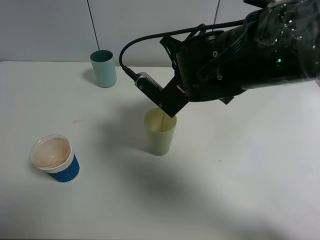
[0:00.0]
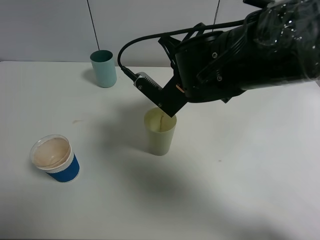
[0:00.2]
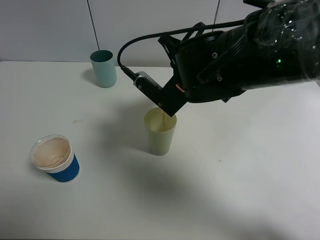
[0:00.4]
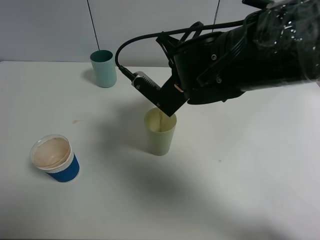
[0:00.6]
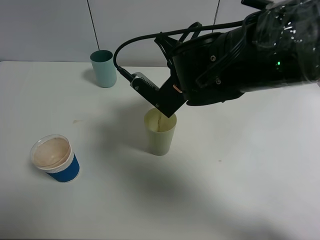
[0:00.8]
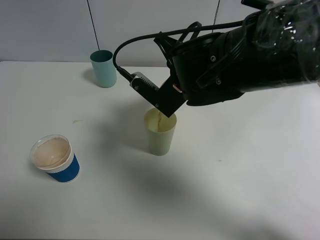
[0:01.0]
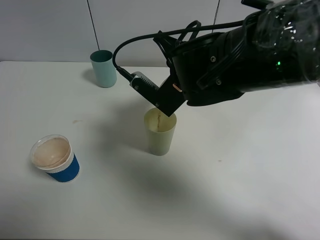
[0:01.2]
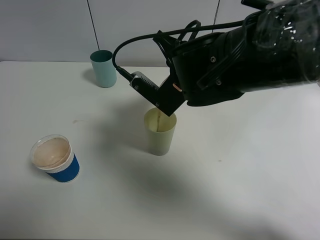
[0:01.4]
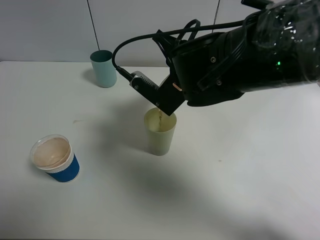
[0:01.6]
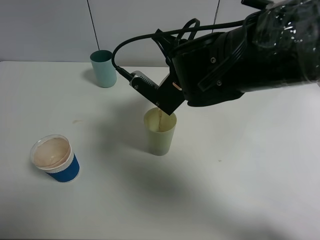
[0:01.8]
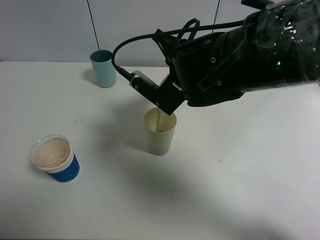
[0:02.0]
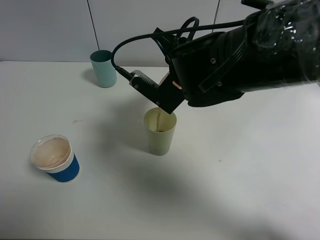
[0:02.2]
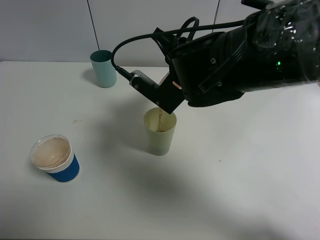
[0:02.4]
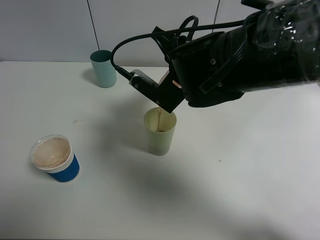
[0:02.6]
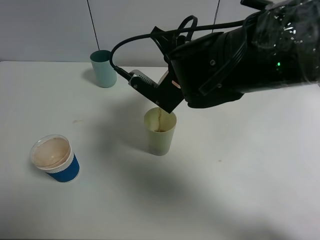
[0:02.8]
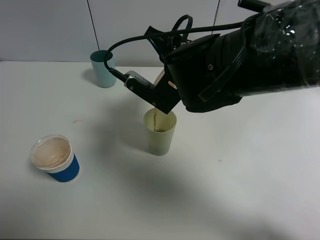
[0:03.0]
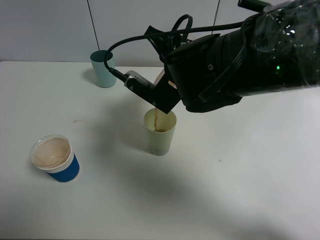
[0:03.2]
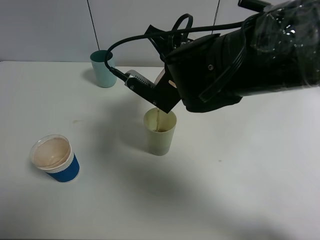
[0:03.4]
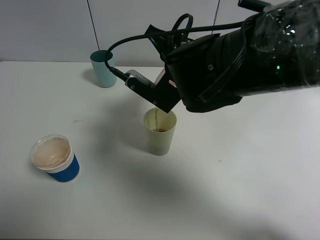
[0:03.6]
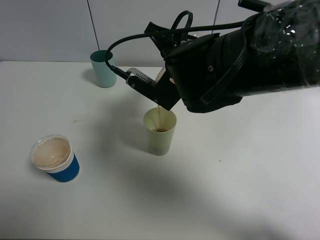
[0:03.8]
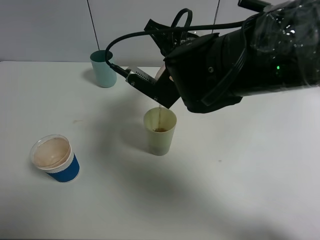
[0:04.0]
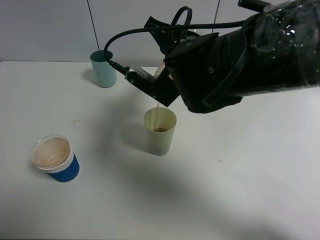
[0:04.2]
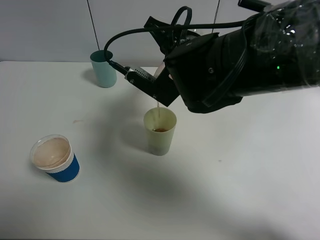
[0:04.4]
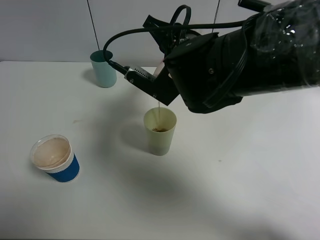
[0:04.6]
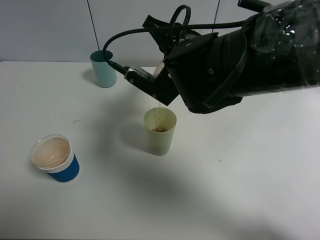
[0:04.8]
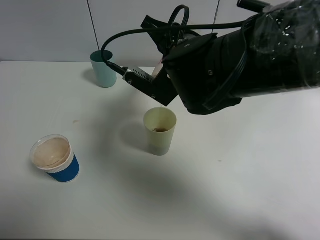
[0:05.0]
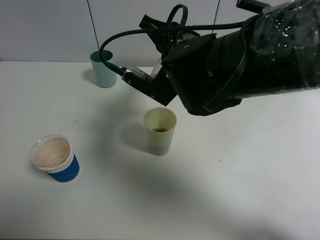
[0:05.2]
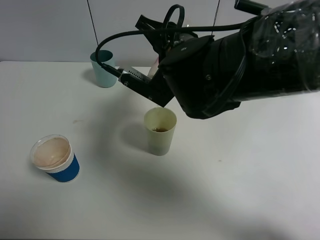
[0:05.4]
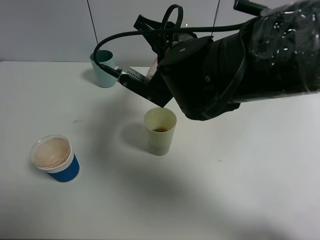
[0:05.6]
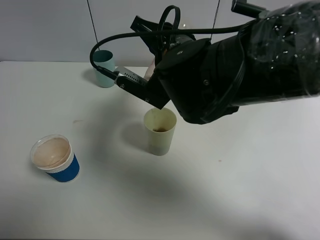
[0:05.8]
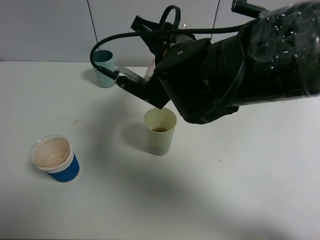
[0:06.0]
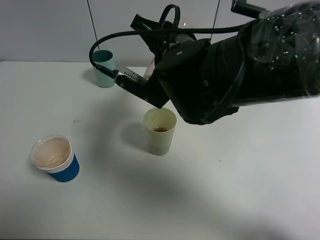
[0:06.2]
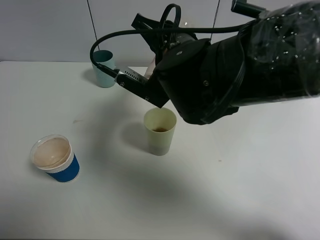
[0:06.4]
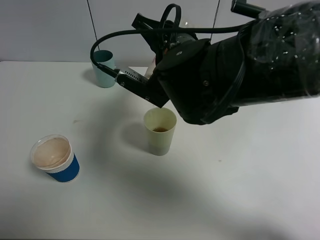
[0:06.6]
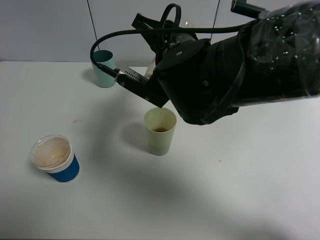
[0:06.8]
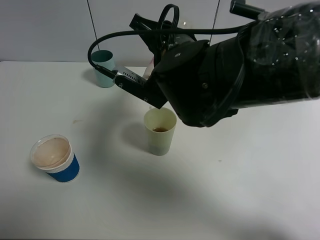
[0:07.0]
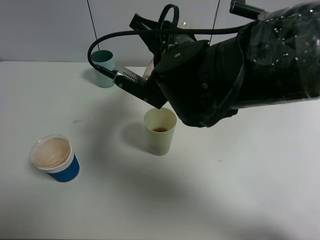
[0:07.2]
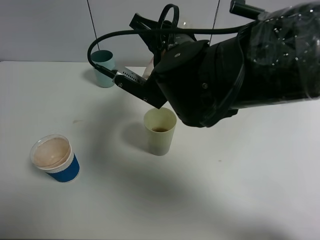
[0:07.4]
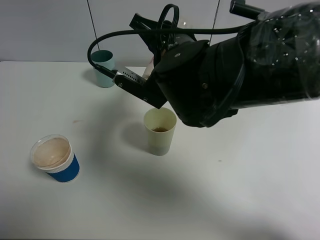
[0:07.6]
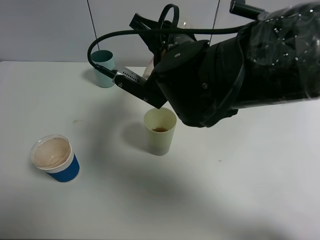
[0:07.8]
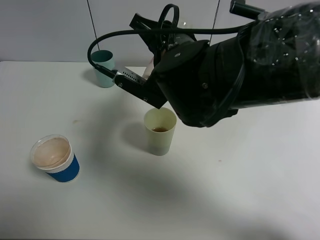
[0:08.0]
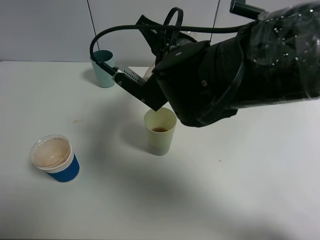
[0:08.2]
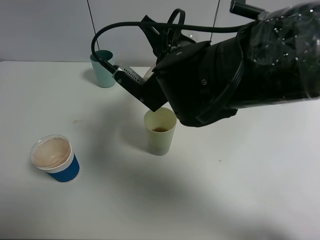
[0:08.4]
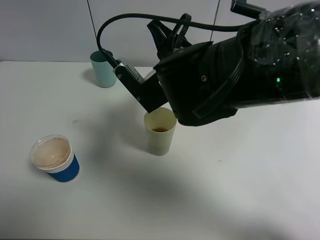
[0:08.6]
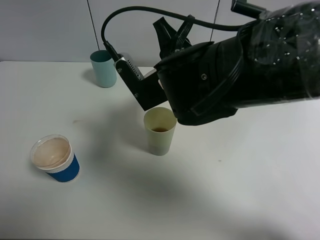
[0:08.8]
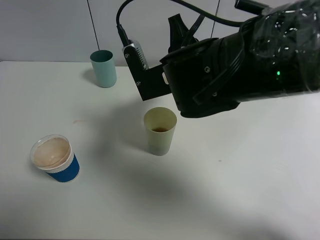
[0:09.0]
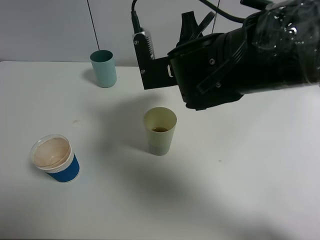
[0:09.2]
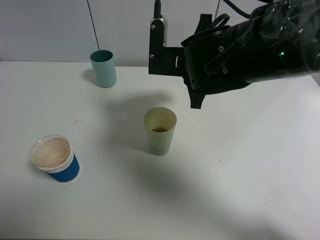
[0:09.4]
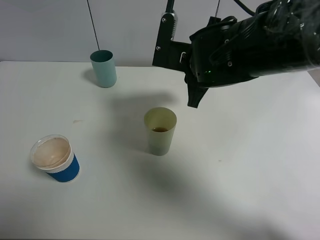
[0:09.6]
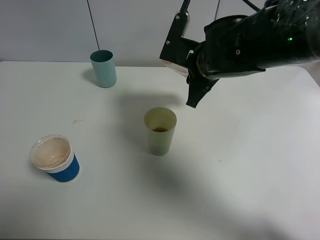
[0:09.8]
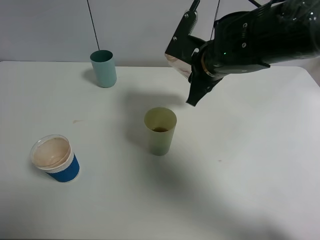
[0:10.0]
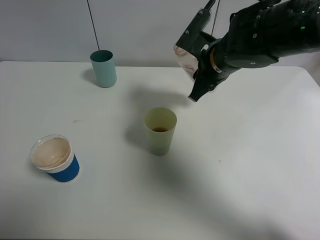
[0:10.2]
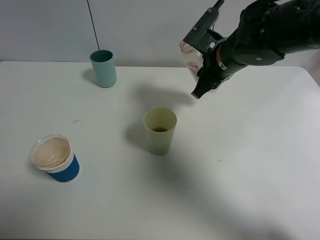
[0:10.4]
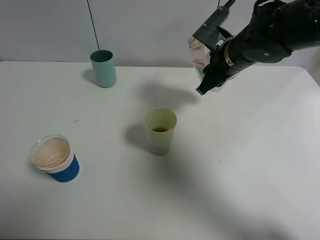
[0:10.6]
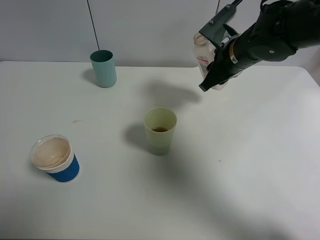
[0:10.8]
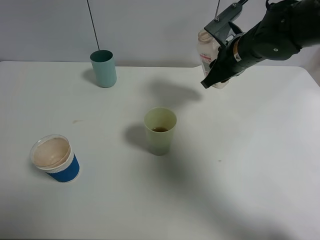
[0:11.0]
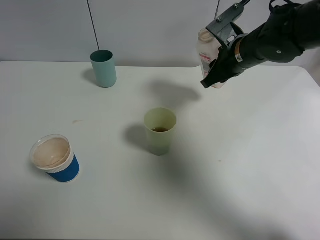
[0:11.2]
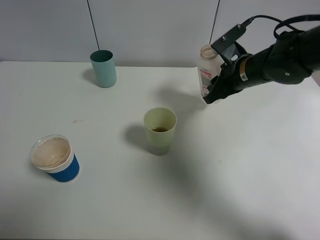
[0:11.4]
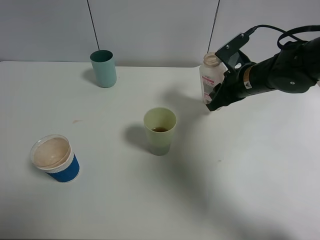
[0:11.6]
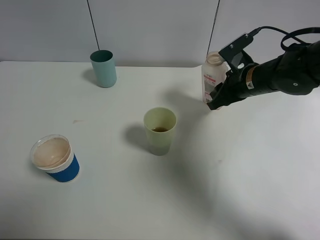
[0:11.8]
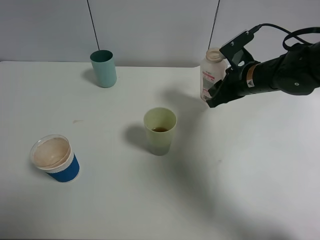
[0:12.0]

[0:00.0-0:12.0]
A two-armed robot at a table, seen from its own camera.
Task of the whole recording: use a clamp to hold the bottle of the drink, pour the beverage into a random cup, then clamp the cup containing the drink and pour the drink into another random cup.
Step, 0:00.0 to 0:10.0: Pour the drink into the green plastic cup with right gripper.
0:00.0 to 0:04.4: There are only small adjustments of the grippers.
0:04.4 to 0:06.0: The grippers move only a little.
0:06.0 to 0:07.6: The two grippers keep their place.
0:09.0 to 0:10.4: The right gripper shifts some 10 cm forward and to the right.
0:10.4 to 0:12.0: The right gripper moves to the right, approximately 5 cm.

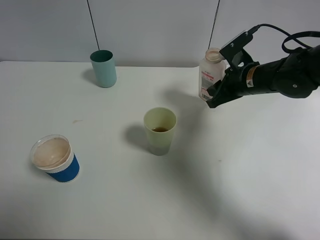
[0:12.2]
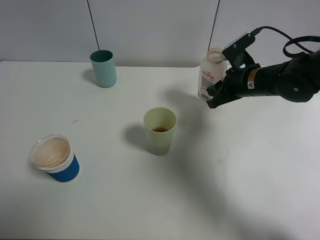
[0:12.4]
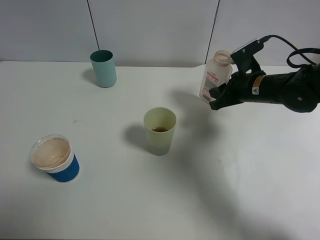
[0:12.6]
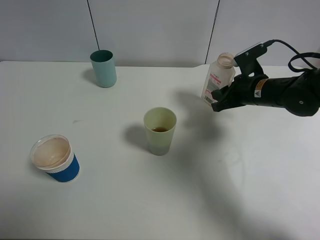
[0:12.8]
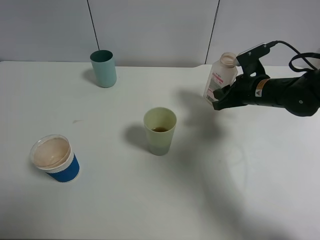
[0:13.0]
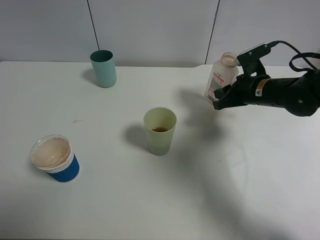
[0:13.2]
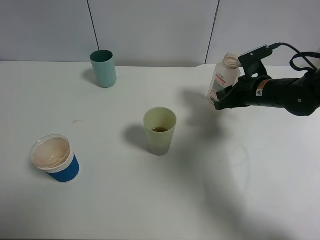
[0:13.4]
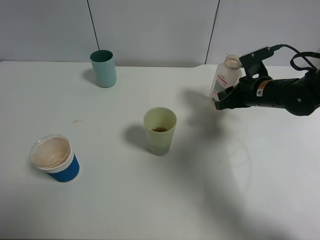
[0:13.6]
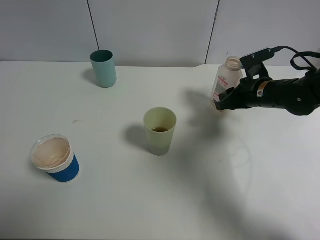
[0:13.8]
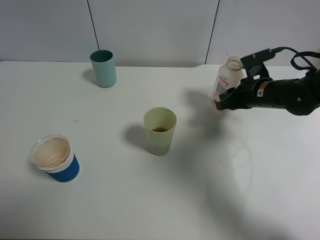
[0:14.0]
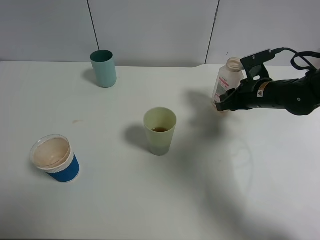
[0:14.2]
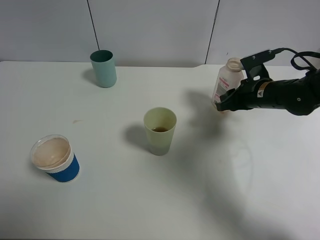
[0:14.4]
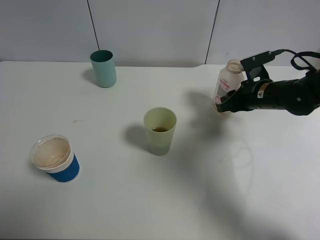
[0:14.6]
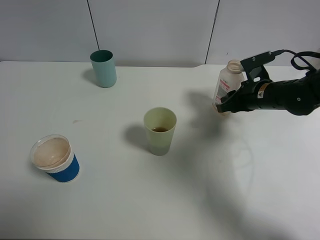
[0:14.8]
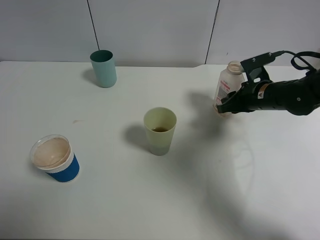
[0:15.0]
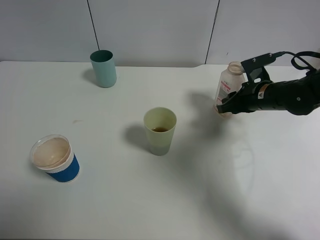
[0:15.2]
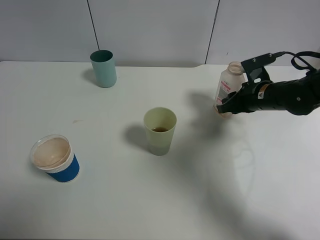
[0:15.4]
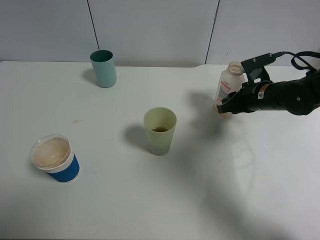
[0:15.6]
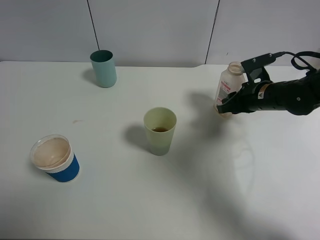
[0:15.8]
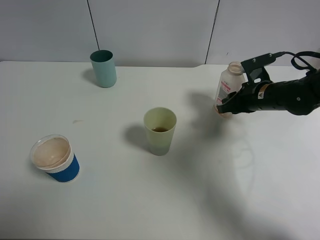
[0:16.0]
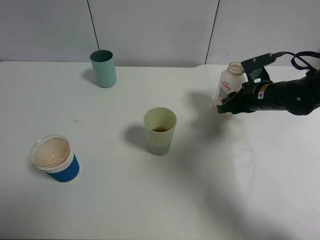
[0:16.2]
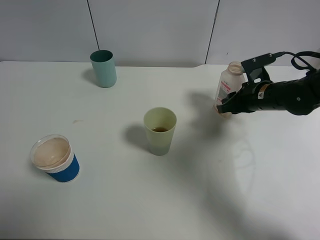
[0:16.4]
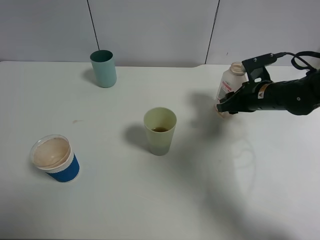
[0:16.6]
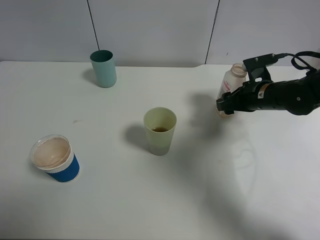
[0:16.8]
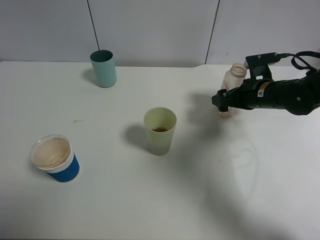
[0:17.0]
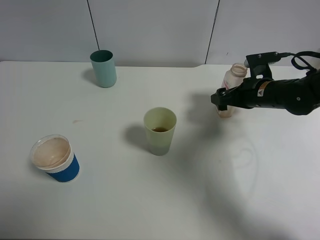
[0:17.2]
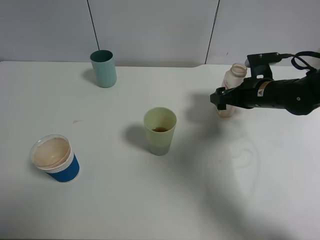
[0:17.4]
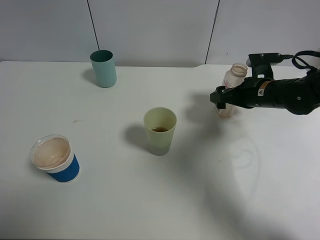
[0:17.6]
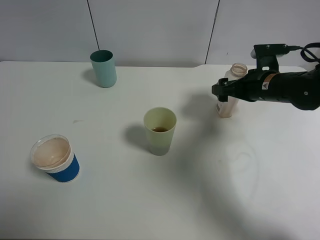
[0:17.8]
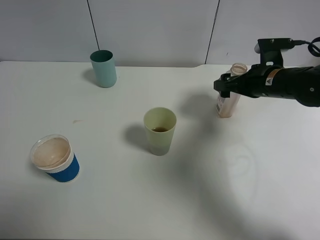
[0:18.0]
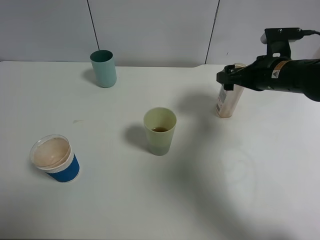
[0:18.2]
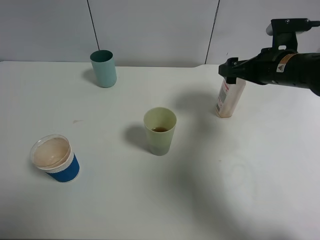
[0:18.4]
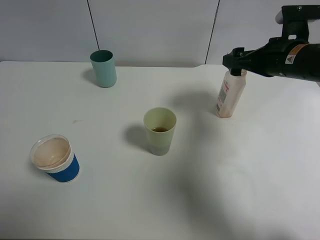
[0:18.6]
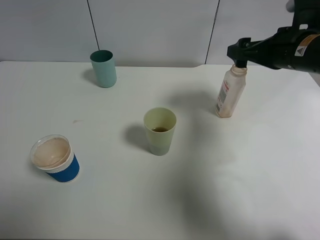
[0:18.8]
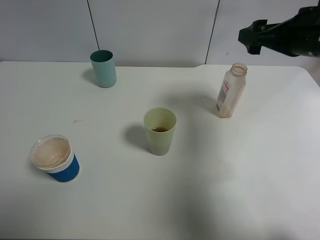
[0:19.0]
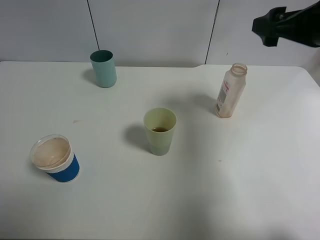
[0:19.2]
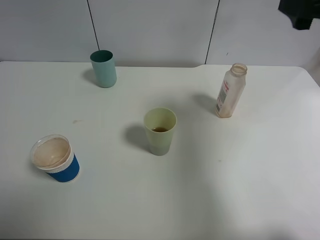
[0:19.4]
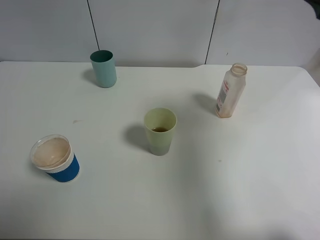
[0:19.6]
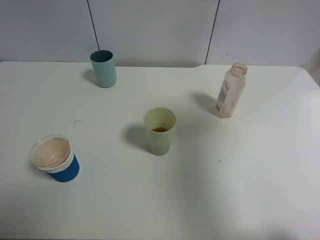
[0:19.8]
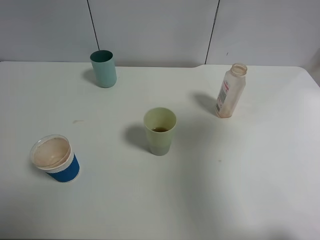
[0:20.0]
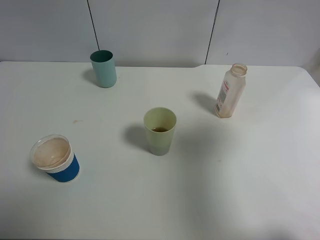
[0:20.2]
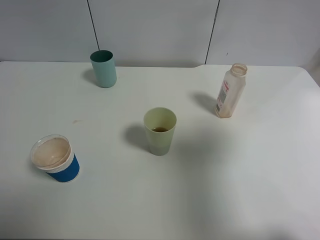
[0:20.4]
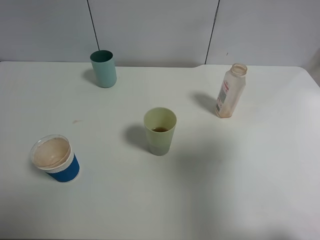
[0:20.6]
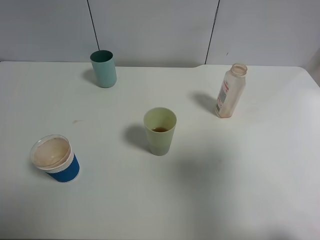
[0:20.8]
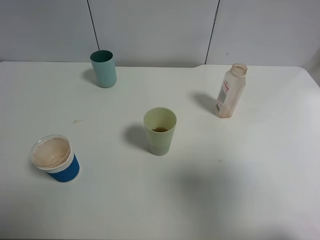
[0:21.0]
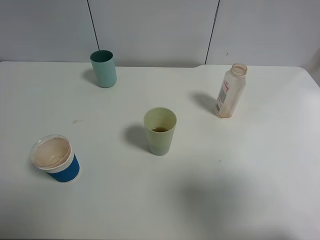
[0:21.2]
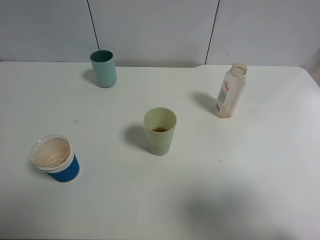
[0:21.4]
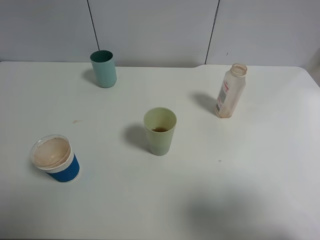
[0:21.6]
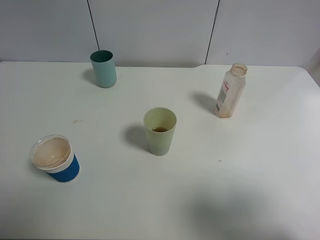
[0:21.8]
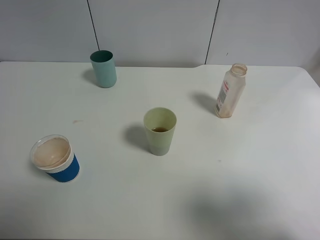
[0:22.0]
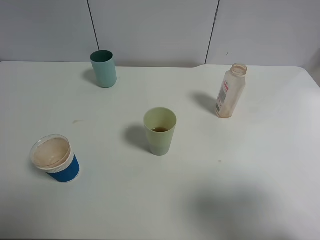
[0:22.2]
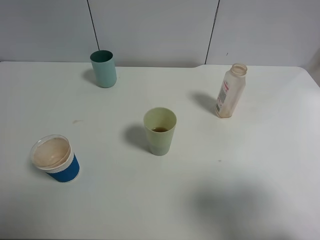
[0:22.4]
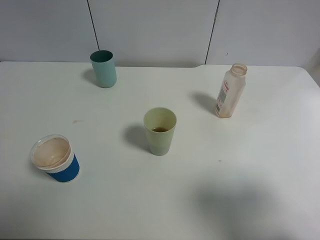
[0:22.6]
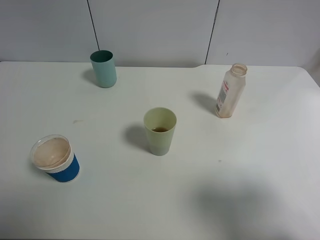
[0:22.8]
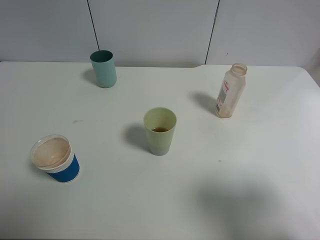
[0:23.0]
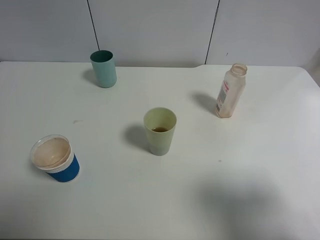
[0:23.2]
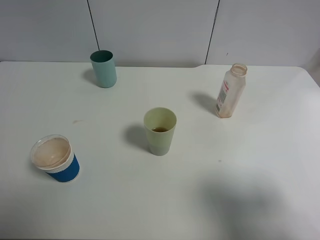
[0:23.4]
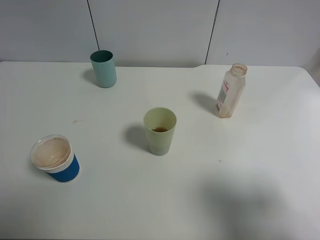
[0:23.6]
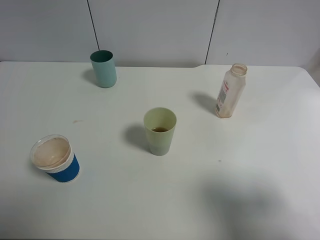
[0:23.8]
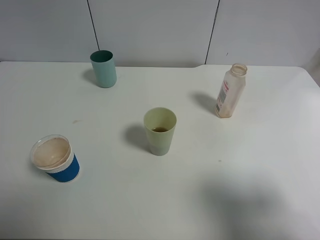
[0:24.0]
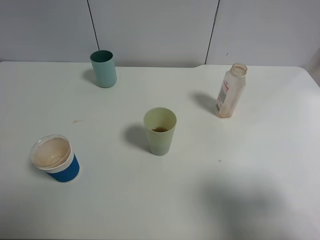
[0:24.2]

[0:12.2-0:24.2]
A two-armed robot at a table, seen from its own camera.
Task of the whole recording: use a clamp to hold the bottle of the drink, pour the beverage into a random cup, then clamp the cup containing the drink and pour the drink into another random cup.
Step, 0:12.2 to 0:18.8: Place the drink bottle on the table with right gripper.
0:12.2 to 0:15.2: There are only small adjustments of the grippers.
0:15.2 to 0:16.6: Neither gripper changes place.
0:16.6 to 0:18.2: The right gripper goes roughly 5 cm upward, and opens its fingers.
0:18.2 to 0:19.8: The right gripper goes about 25 cm upward and backward.
0:19.8 to 0:21.2: The right gripper shifts approximately 15 cm backward.
0:21.2 to 0:22.6: The right gripper heads downward, covering about 5 cm.
